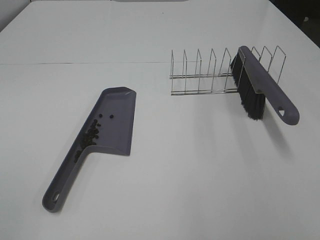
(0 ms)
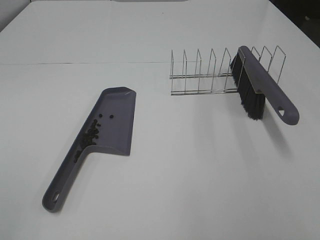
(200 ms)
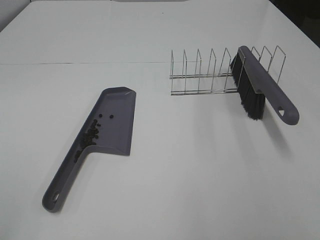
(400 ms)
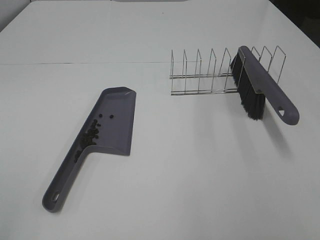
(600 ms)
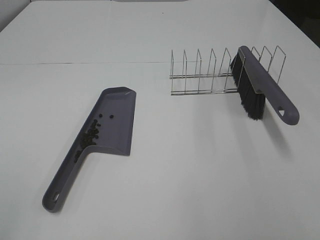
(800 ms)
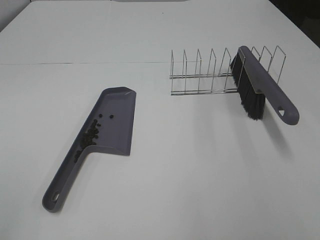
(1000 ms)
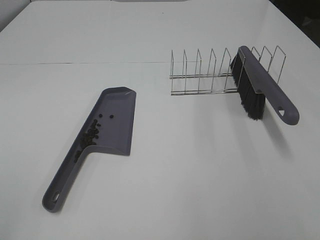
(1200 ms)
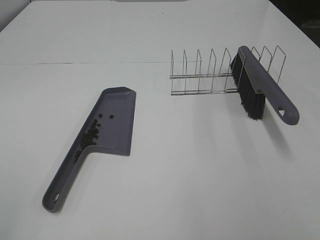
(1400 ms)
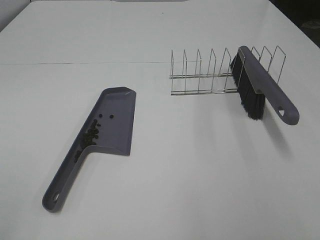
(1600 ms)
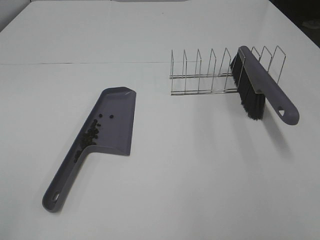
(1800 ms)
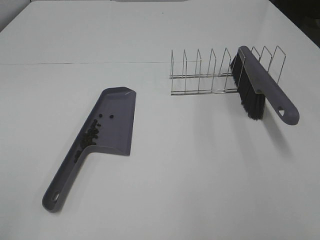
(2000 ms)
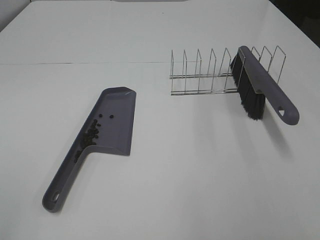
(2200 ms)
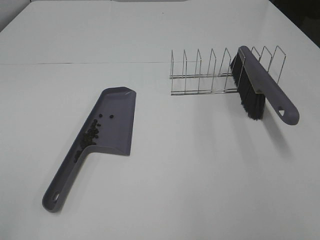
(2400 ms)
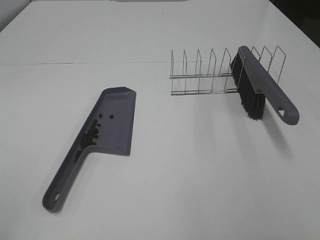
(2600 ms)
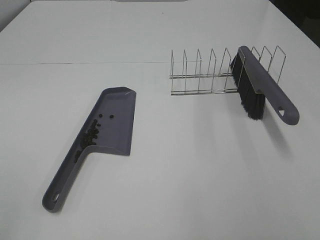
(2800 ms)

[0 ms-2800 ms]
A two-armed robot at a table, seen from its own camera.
Task of the whole recording: Sweep Coffee Bean.
1400 ms to 2800 ms: Neither gripper changes place.

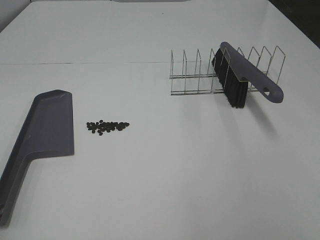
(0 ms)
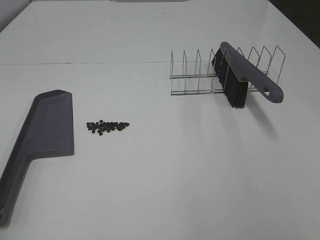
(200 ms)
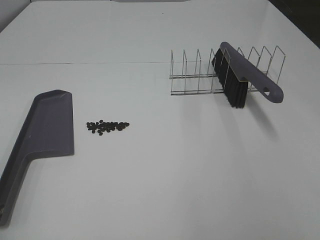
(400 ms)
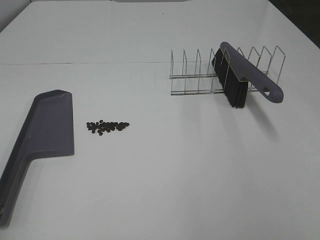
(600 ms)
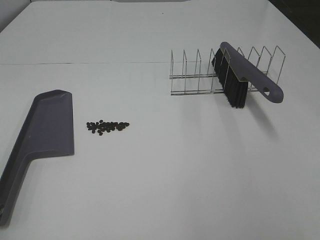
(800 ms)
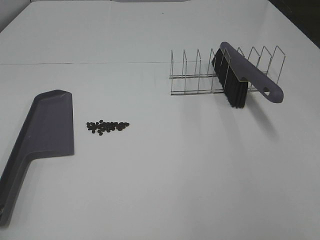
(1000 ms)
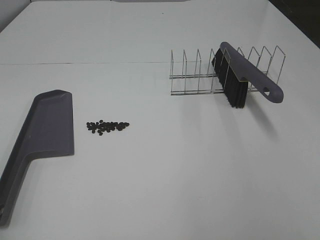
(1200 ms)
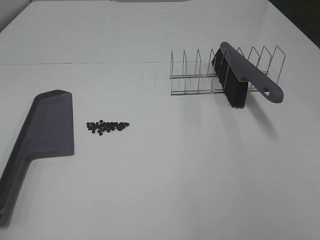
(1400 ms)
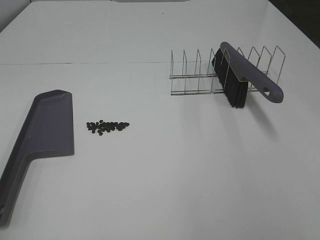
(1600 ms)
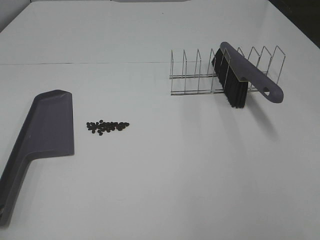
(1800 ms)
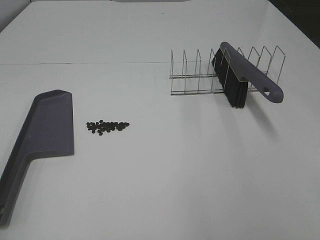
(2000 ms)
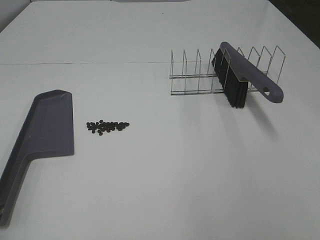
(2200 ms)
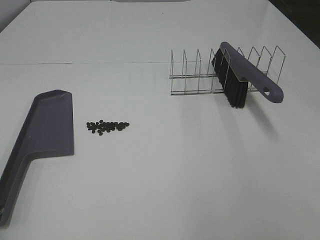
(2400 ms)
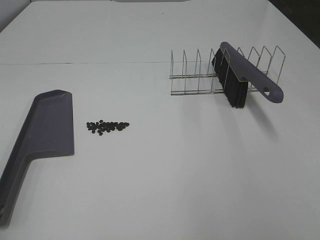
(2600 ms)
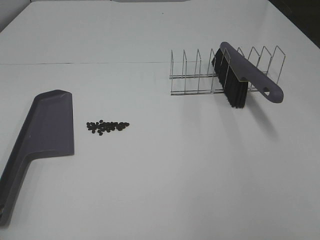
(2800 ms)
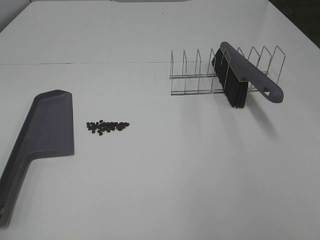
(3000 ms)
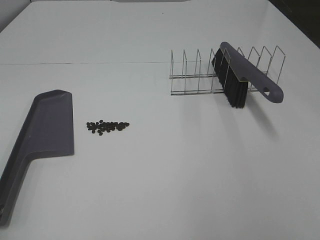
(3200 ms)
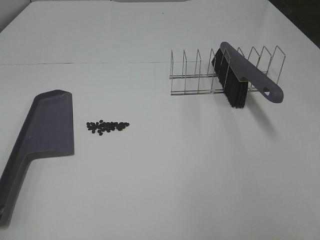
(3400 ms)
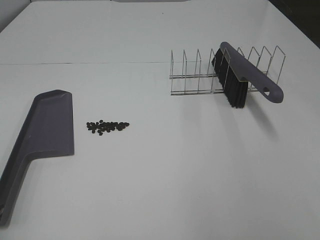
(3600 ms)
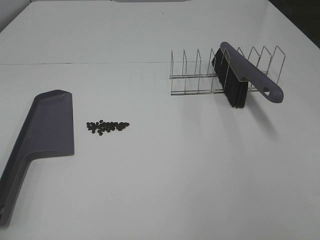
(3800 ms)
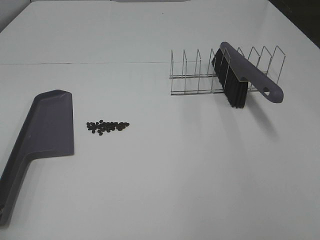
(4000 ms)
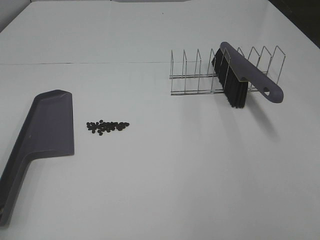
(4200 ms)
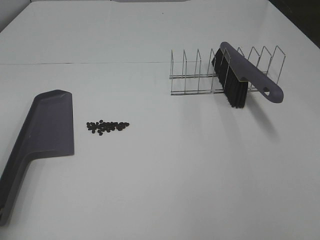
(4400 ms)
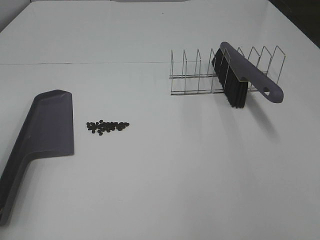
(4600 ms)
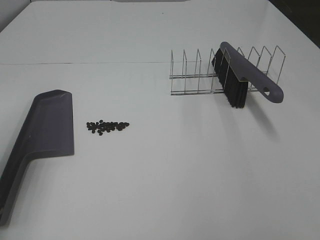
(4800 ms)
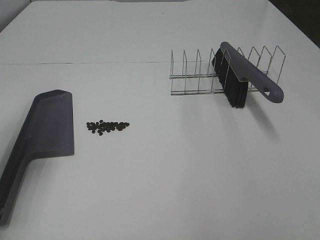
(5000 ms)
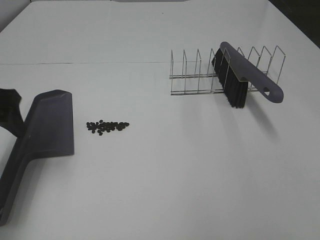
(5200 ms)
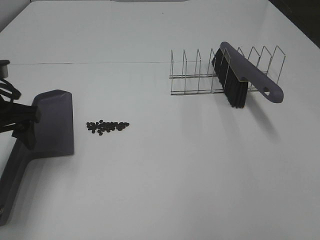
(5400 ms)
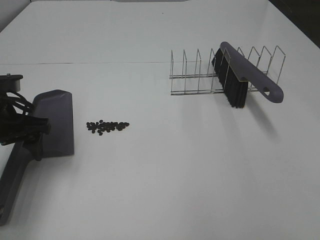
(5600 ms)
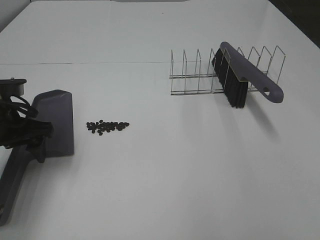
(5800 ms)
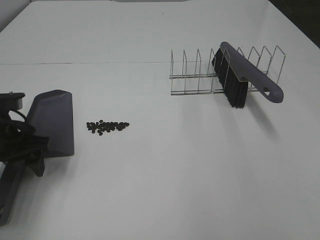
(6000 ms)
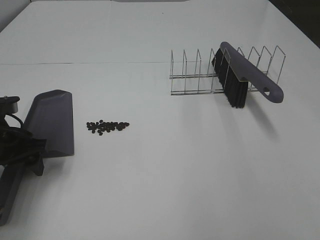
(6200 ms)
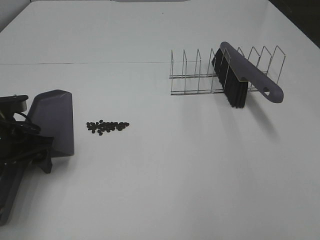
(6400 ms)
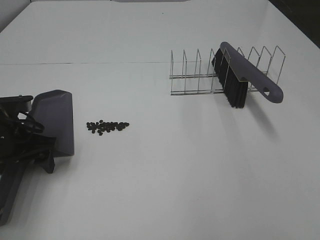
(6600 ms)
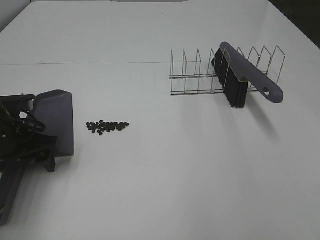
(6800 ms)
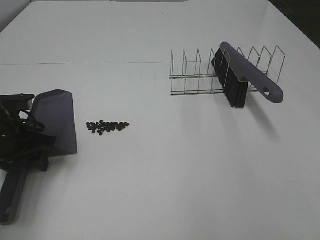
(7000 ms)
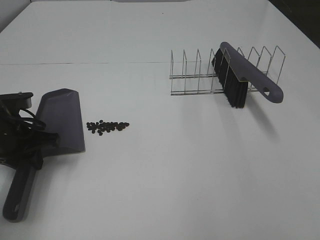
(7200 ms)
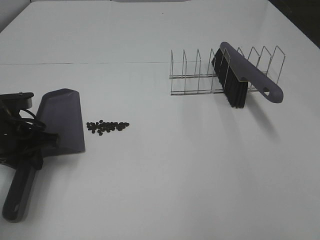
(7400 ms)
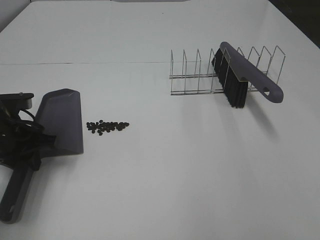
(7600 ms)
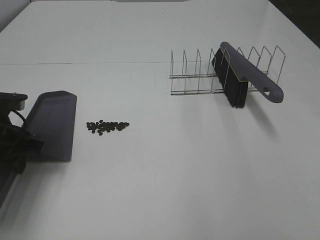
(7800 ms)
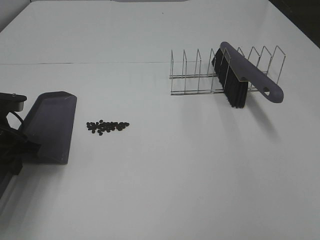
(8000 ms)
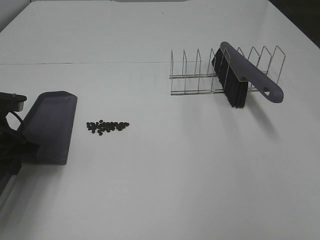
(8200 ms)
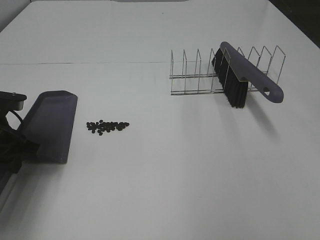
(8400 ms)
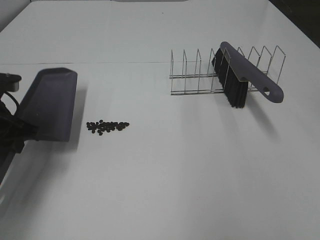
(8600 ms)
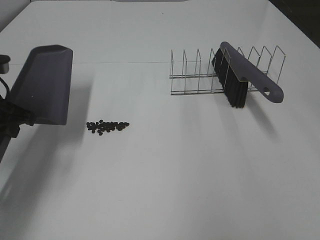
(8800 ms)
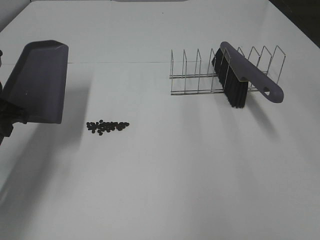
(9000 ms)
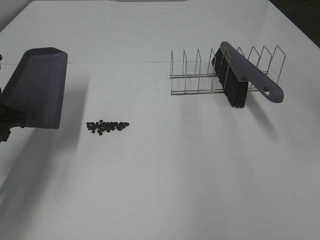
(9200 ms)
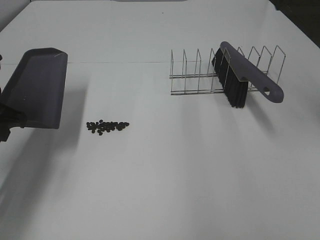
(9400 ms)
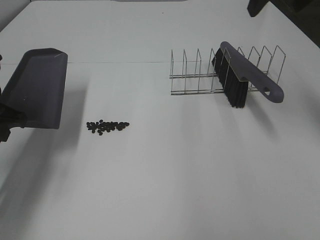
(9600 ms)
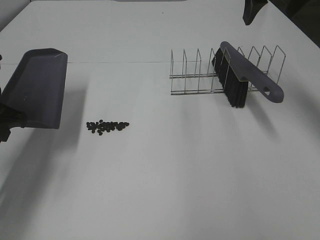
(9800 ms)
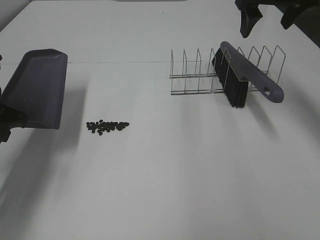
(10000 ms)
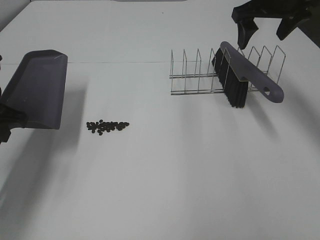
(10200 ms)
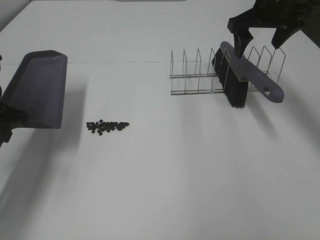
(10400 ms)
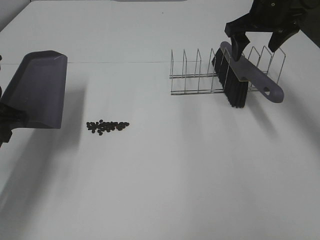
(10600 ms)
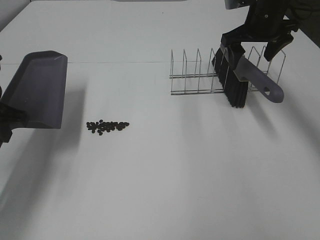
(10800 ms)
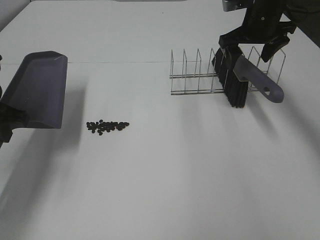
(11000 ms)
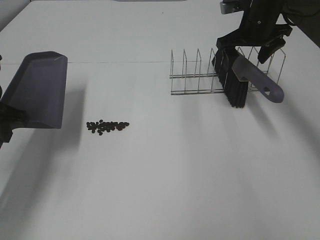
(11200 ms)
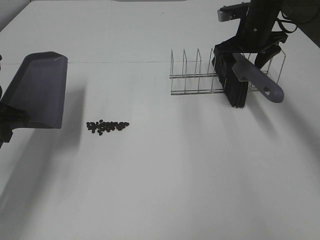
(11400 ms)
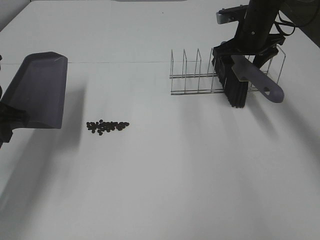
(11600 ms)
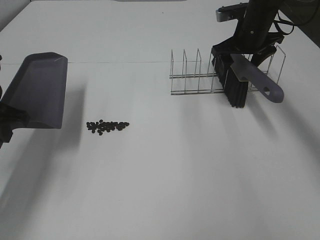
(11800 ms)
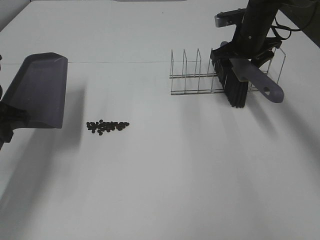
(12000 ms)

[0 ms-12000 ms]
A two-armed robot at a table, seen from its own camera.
Task of the whole recording: Sweep Coffee Bean.
Step, 0 ms to 7200 ms: Left hand: grab the dustpan.
0 ms to 1600 ms: Neither gripper changes place.
4400 ms to 6000 ms: The left gripper goes about 25 cm downward and forward.
6000 ms to 7600 ms: The left gripper closes its fingers.
7600 ms to 9000 ms: The left gripper moves upward, some 10 cm.
9000 ms to 10400 ms: The right gripper is displaced forward and downward by about 30 cm.
10400 ms to 12000 ms: The right gripper moves downward, about 10 cm.

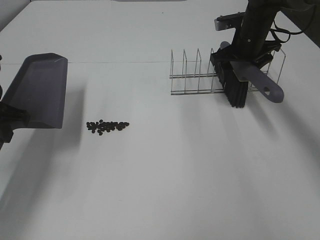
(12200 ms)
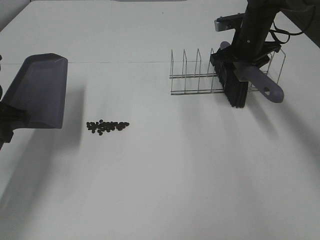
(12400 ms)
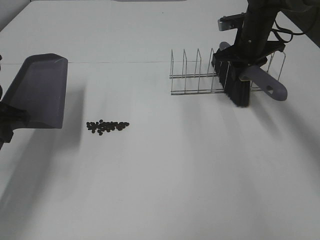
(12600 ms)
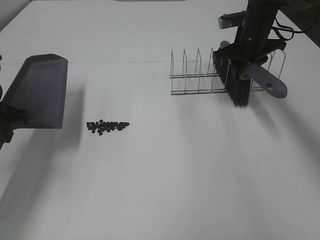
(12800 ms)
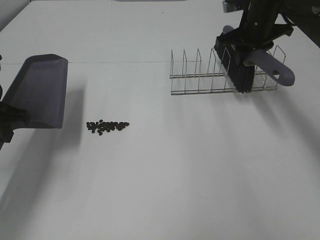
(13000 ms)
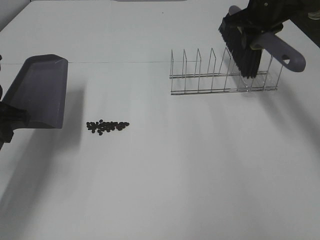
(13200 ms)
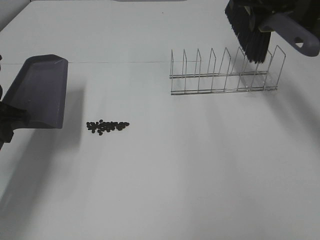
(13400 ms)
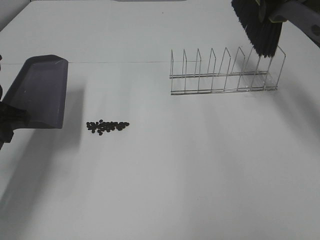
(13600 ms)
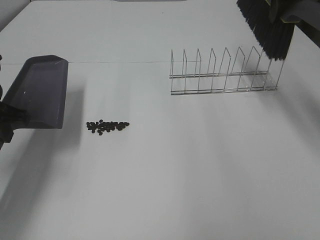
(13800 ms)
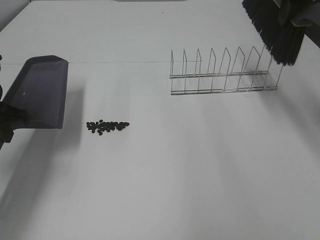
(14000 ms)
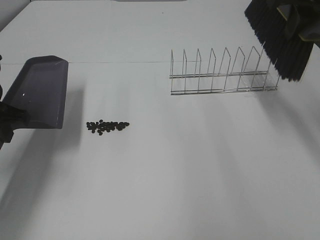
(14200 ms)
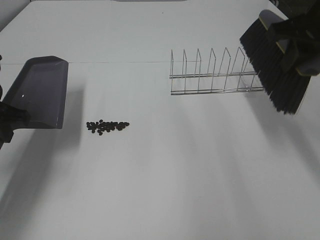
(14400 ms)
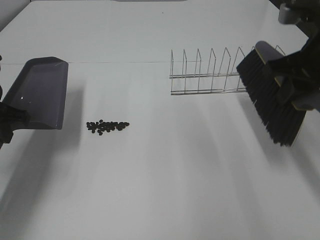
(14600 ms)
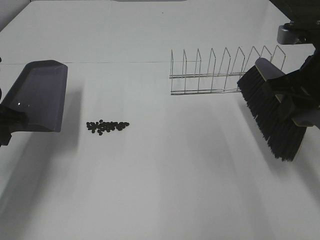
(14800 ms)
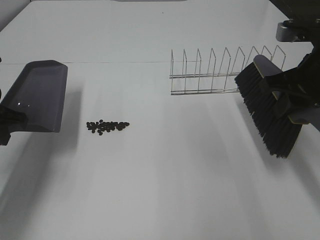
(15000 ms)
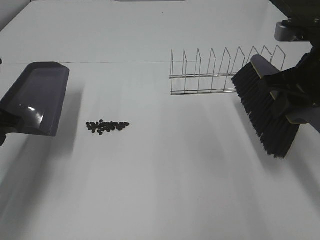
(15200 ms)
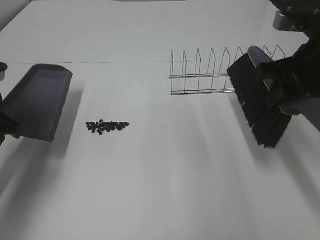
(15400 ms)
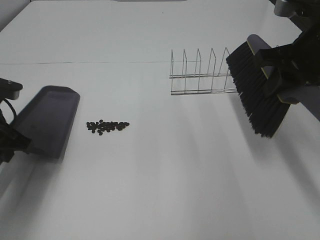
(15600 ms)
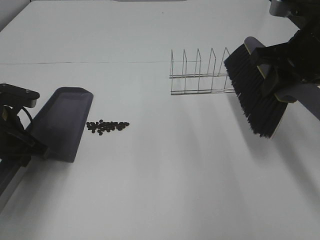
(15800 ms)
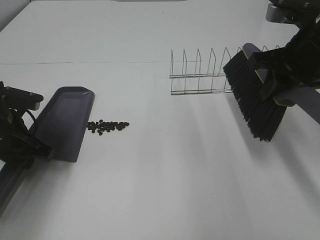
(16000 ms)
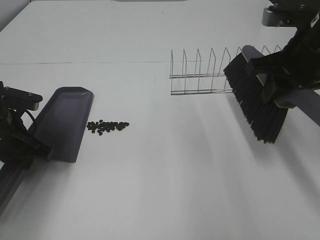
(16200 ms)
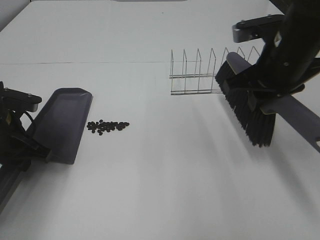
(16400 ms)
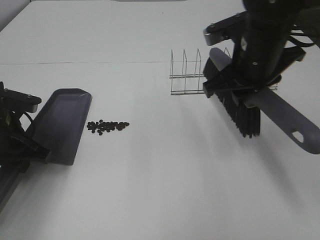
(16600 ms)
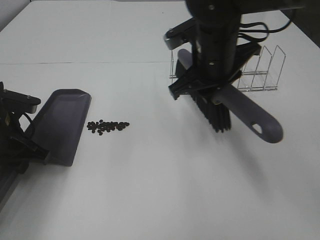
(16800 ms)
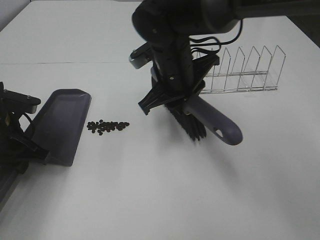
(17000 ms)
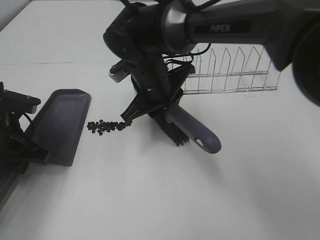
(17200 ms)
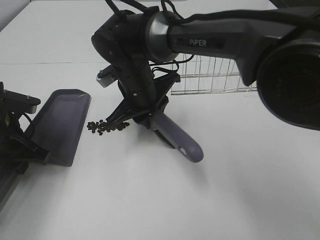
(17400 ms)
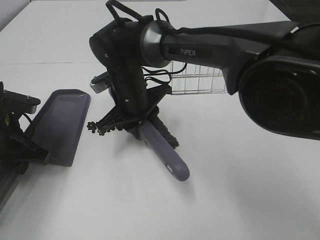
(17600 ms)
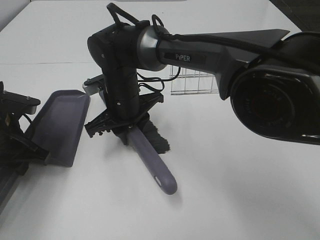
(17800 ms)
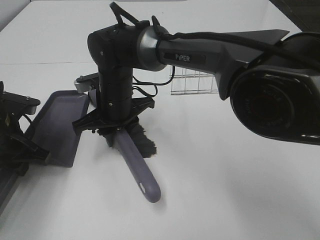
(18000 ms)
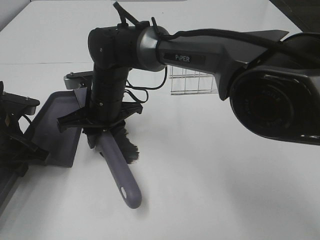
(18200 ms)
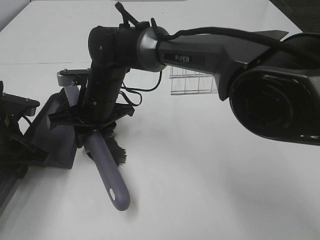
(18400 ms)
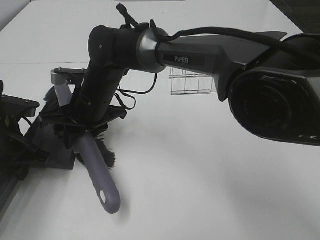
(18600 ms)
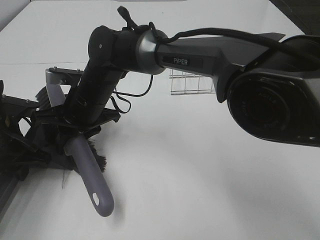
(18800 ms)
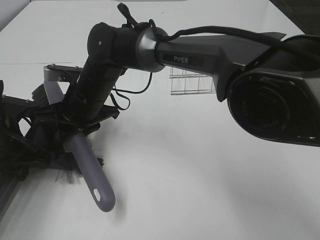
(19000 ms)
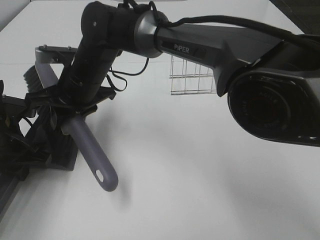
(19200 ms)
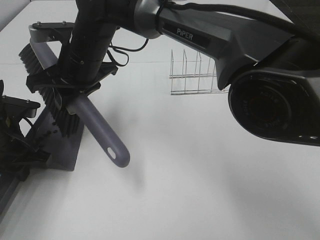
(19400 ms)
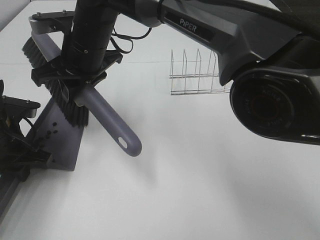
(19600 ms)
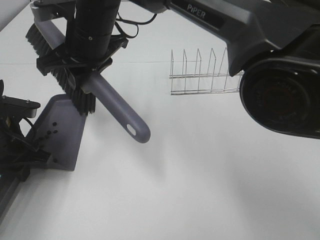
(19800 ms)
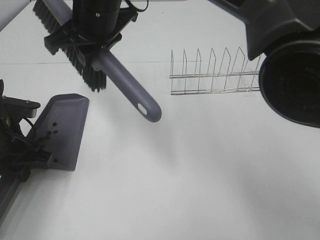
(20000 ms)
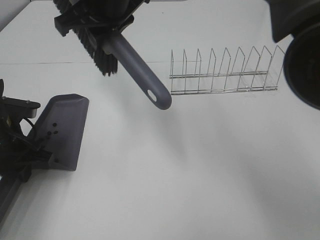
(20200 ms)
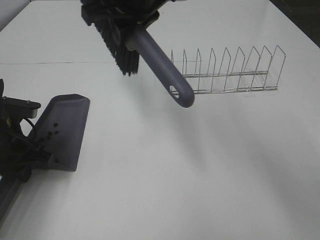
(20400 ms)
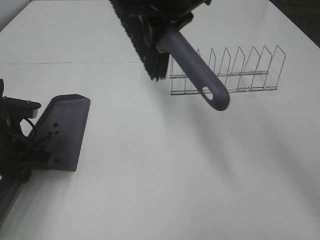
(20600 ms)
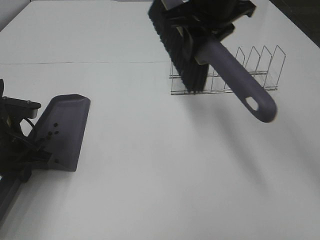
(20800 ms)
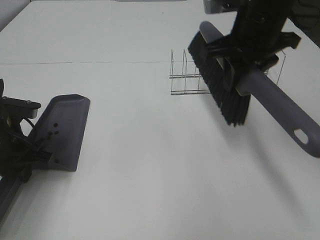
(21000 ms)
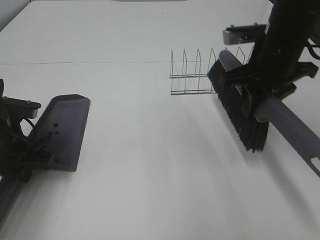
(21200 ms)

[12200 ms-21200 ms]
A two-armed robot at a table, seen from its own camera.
Task of the whole recording: Sweep Coffee Bean.
Step, 12200 ms to 15800 ms: Left hand: move the dustpan to the left side of the coffee beans.
Step, 12800 ms to 19600 ms: Right hand:sweep the coffee beans into the dustpan.
12200 ms to 13800 ms: The right gripper travels upward and backward by some 20 cm, and closes up.
13800 ms to 15200 ms: The right gripper travels backward and downward by some 15 cm.
15200 ms to 16600 ms: The left gripper goes about 10 cm downward. Meanwhile the right gripper is displaced to the left by about 10 cm.
16600 ms to 18200 ms: The right gripper shifts some 25 cm to the left and downward.
18200 ms to 19800 ms: The right gripper goes approximately 15 cm upward.
19800 ms to 21200 ms: The right gripper moves to the right, about 30 cm.
